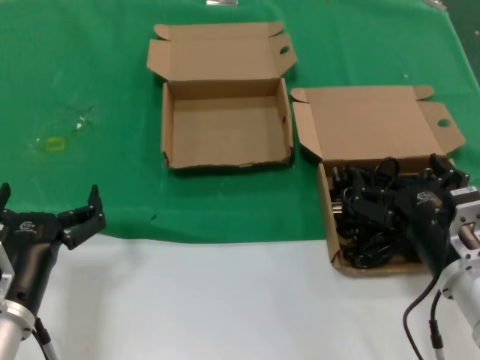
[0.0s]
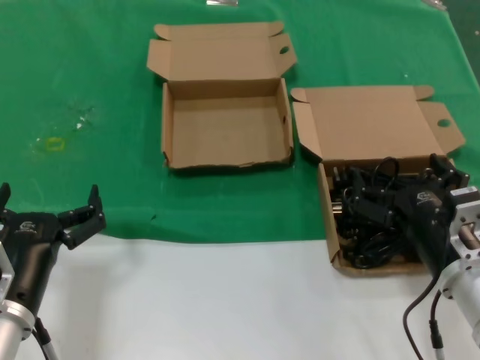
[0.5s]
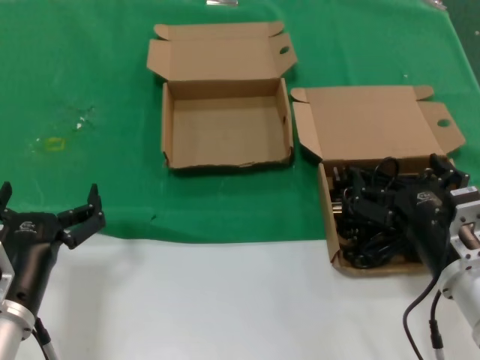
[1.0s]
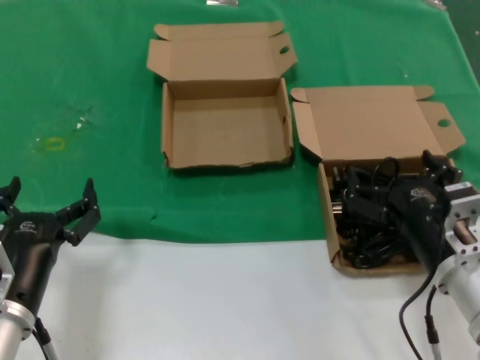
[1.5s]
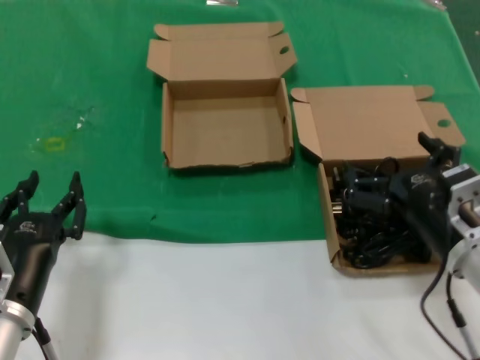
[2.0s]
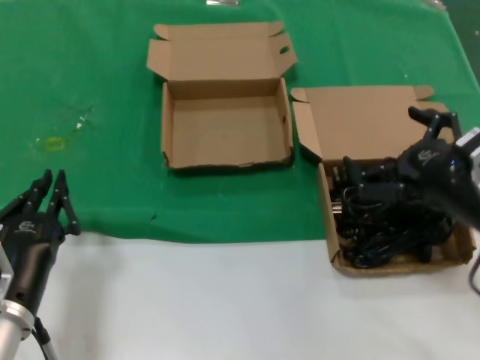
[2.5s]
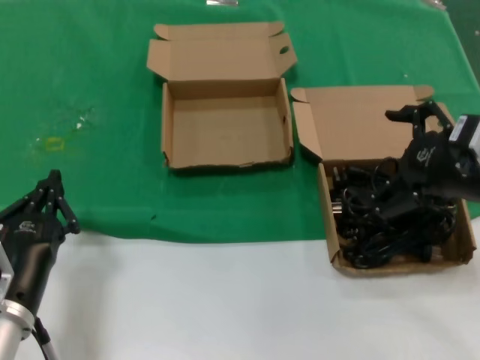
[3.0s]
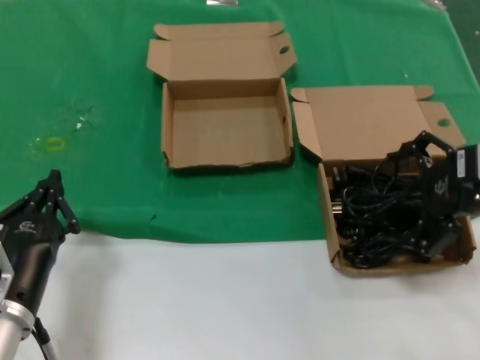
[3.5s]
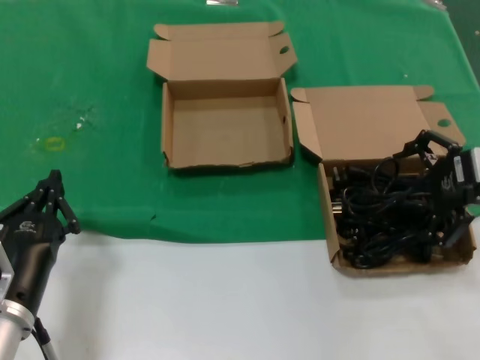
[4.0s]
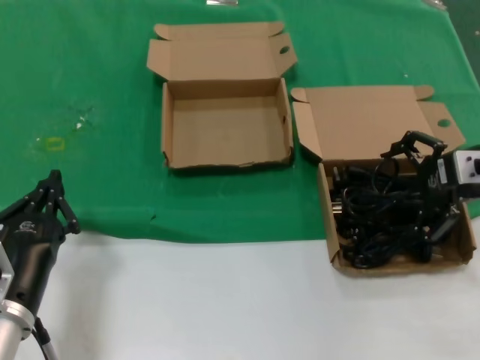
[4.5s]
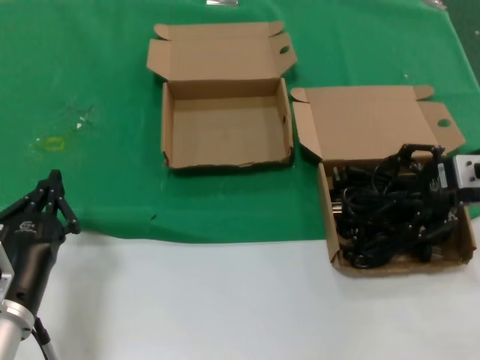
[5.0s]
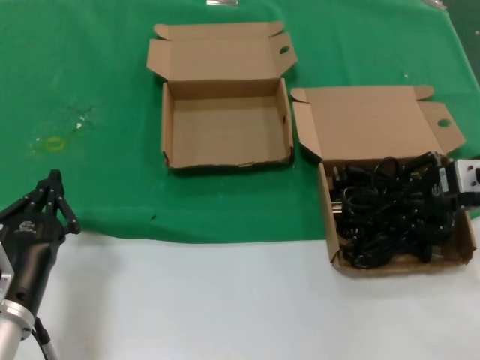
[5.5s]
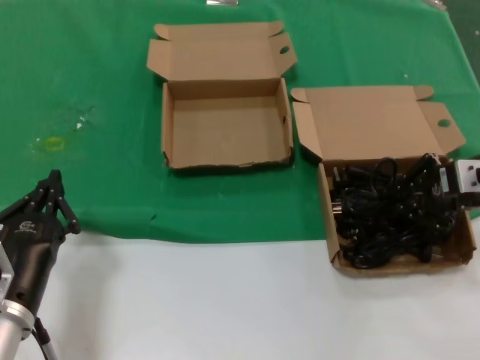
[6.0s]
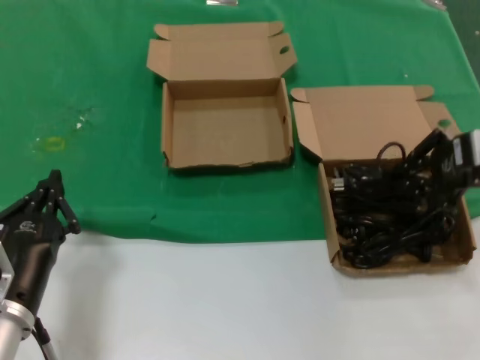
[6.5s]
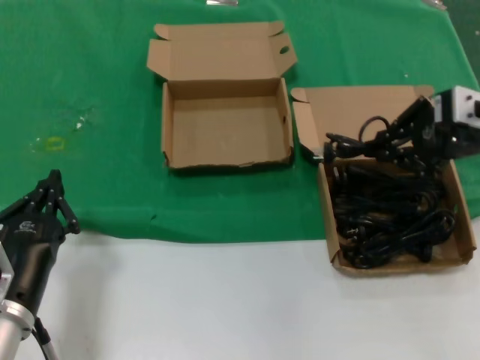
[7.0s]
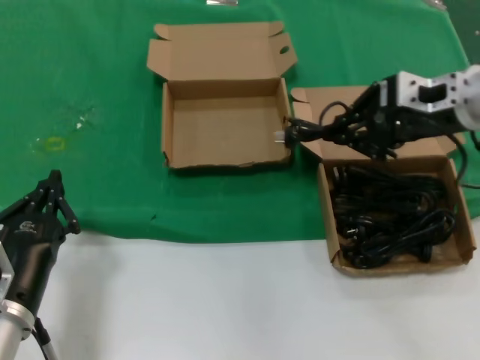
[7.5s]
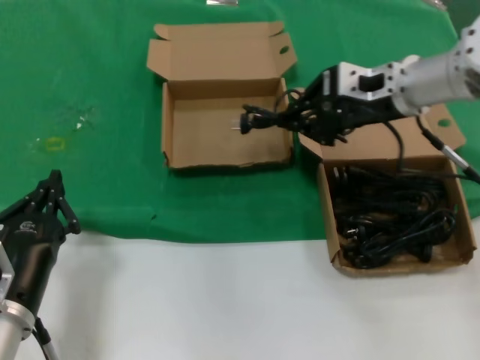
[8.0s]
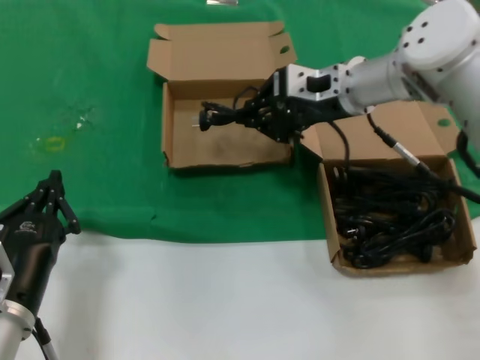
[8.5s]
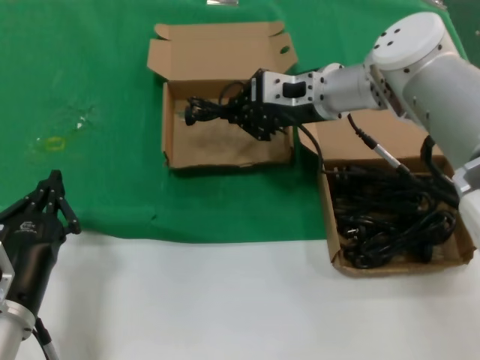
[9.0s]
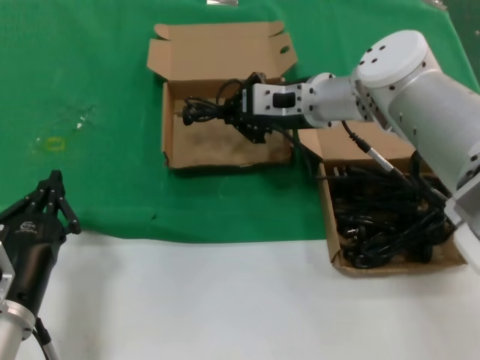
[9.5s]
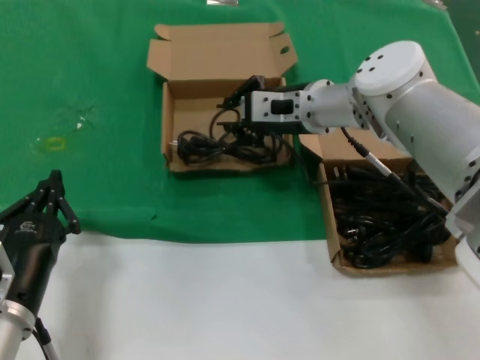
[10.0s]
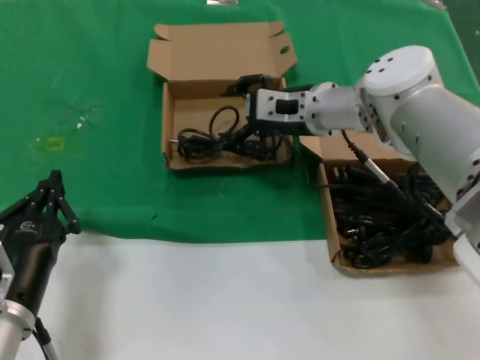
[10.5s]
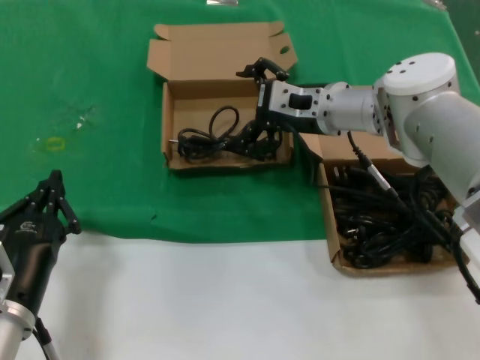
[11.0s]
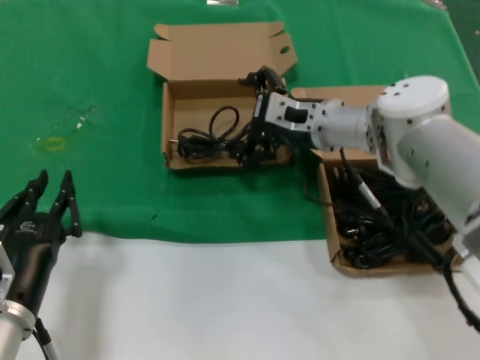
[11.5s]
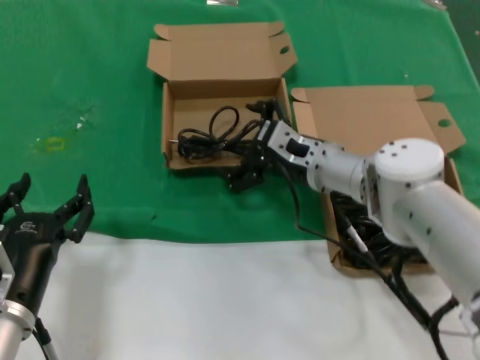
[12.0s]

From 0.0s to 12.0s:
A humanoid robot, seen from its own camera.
Task of the whole recording: take the parts from the box containing them and put them into an empty box.
Step, from 0.0s to 5.5s: Grasp the data cable.
Step, from 6.0s to 10.5s: Place the data cable in the another box.
From 0.0s to 2.0s: There are only small adjustments of the hands.
From 2.0s to 4.0s: The right hand goes approximately 20 cm upward, to the right and forward.
From 4.0s to 6.0s: The hands stay close to where they were, moving slightly.
From 6.0s to 8.0s: The right hand shifts roughly 15 cm to the left, forward and upward.
From 8.0s to 10.0s: The right hand heads to the left and downward, covering about 10 cm.
From 10.0s to 12.0s: The right hand moves downward, approximately 10 cm.

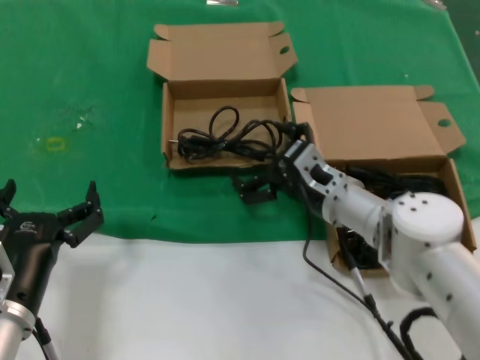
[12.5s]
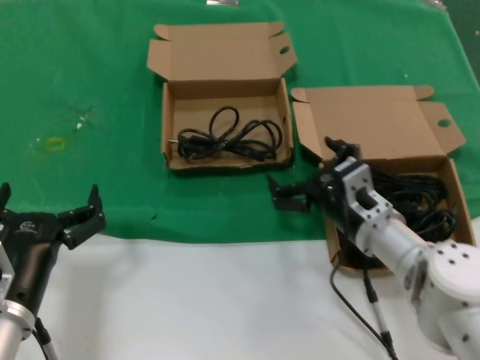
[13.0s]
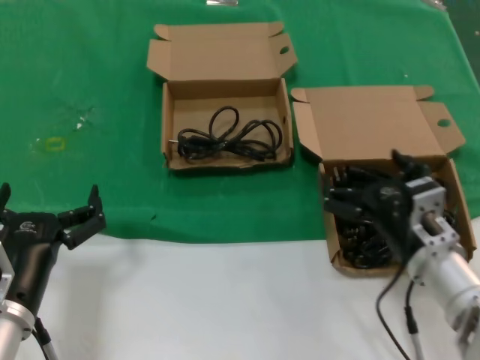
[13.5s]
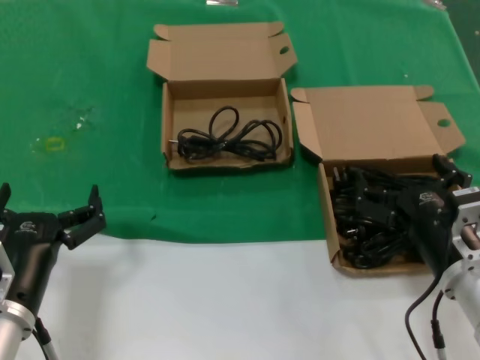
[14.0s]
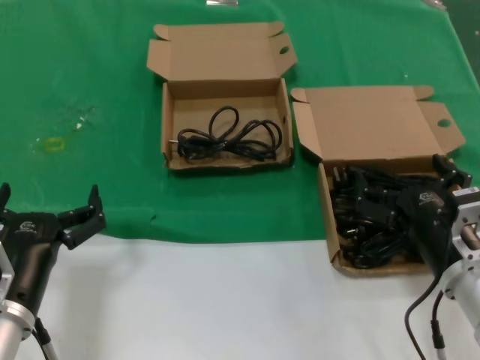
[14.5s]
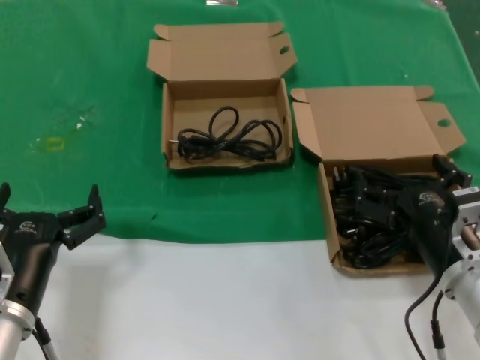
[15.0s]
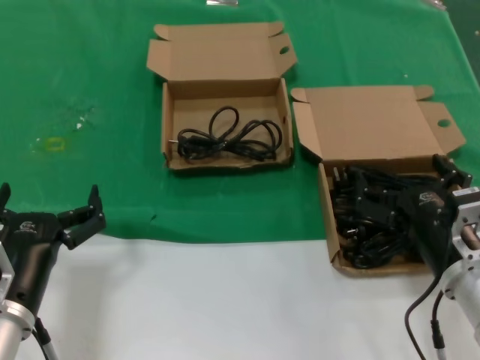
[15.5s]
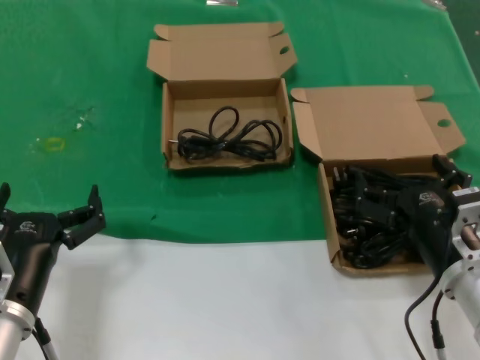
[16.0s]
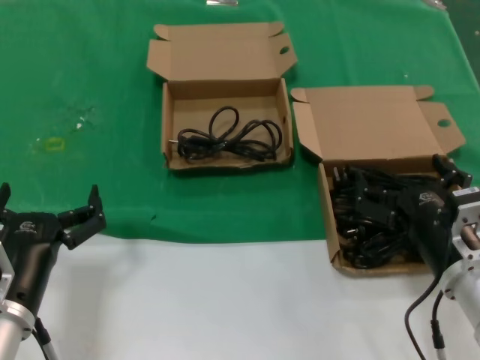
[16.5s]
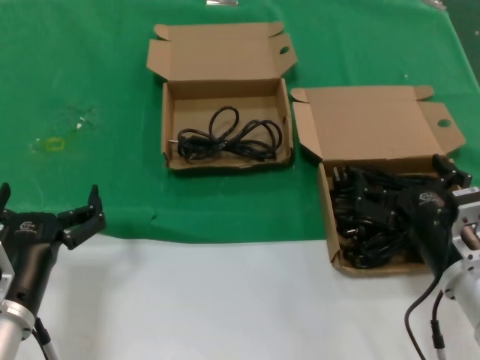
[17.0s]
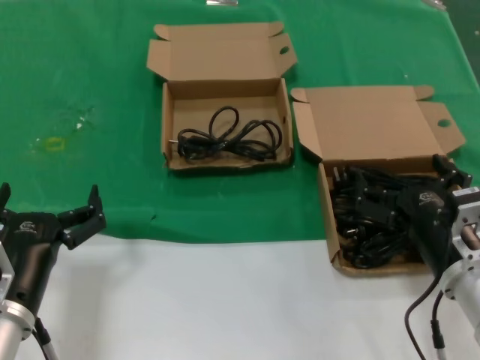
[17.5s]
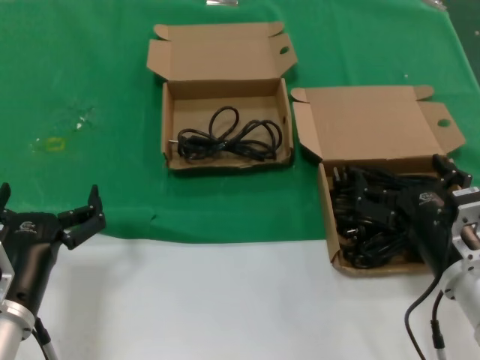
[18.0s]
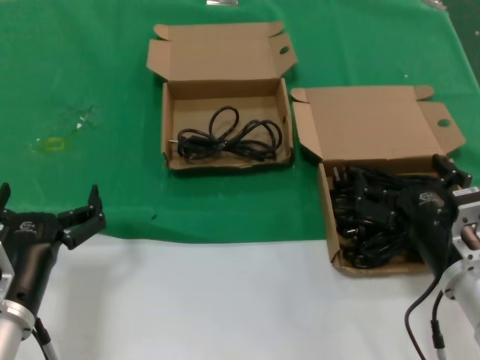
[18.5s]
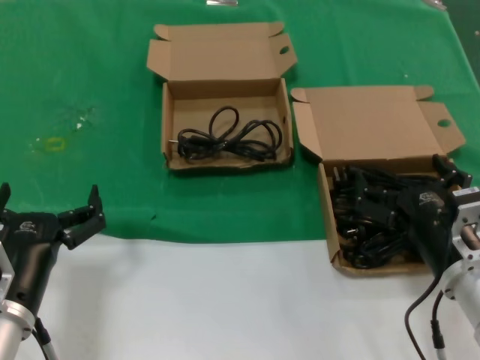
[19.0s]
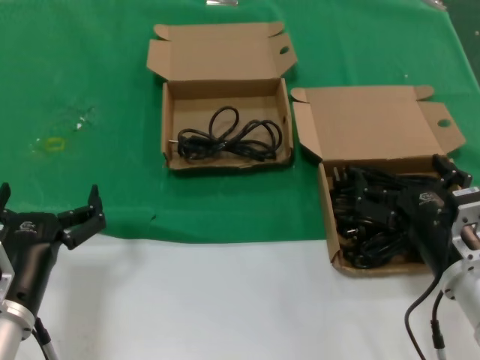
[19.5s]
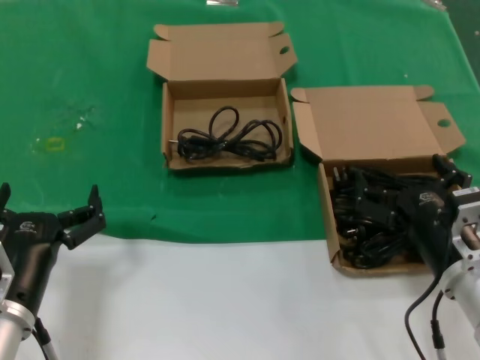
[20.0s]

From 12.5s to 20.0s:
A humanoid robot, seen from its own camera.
Task of the whole recording: take the parts from the box containing them and put them into an empty box.
From 12.5s to 14.5s: The right hand heads backward and to the right, covering roughly 20 cm.
From 14.5s to 20.0s: Both hands stay put.

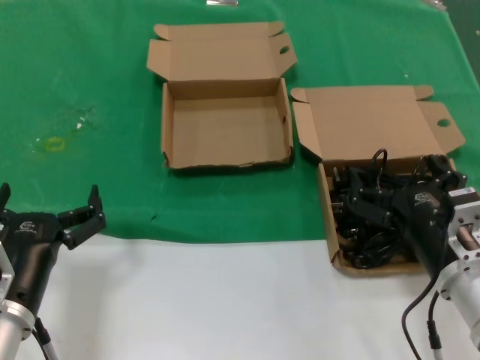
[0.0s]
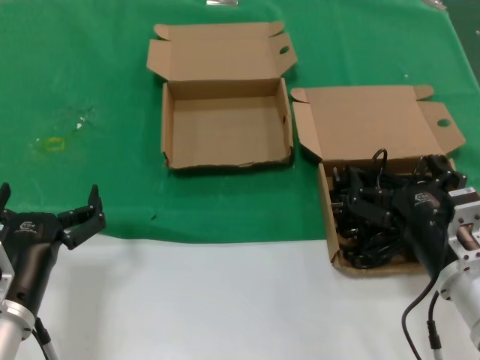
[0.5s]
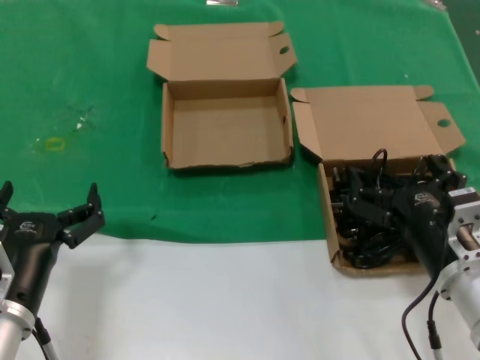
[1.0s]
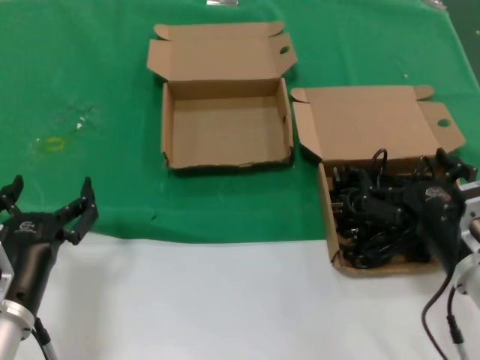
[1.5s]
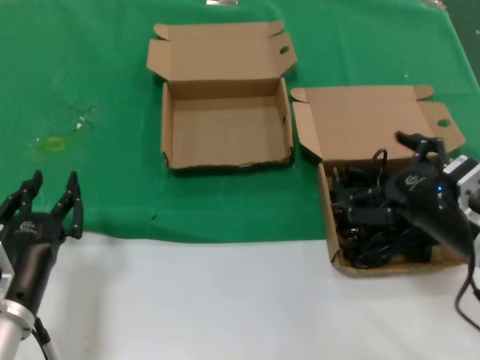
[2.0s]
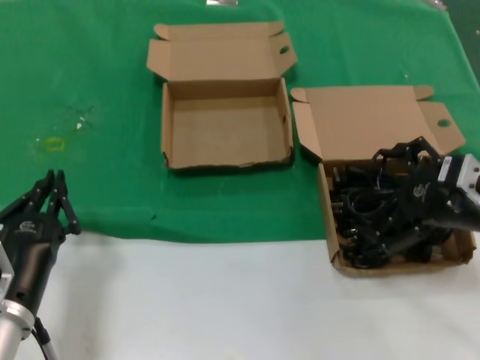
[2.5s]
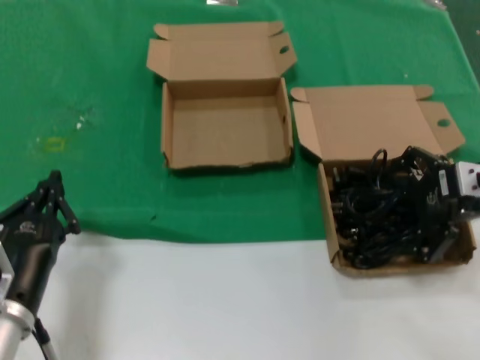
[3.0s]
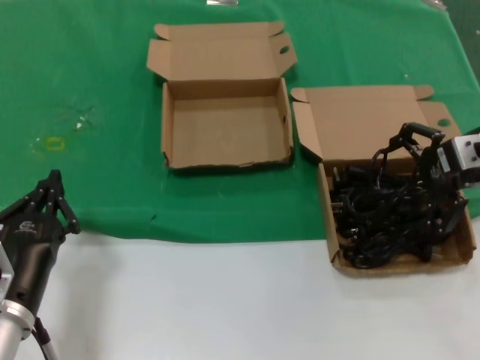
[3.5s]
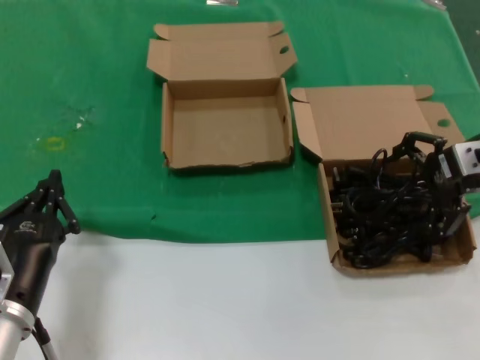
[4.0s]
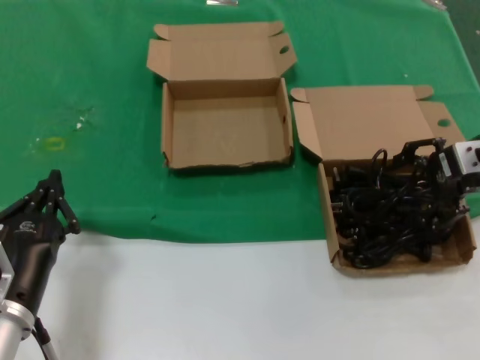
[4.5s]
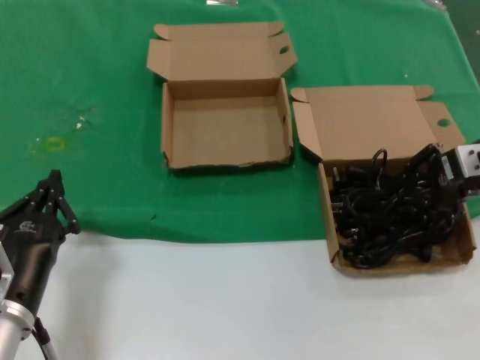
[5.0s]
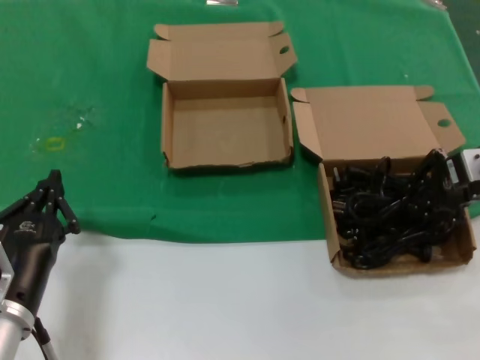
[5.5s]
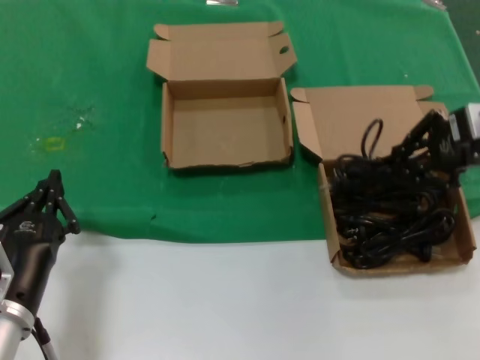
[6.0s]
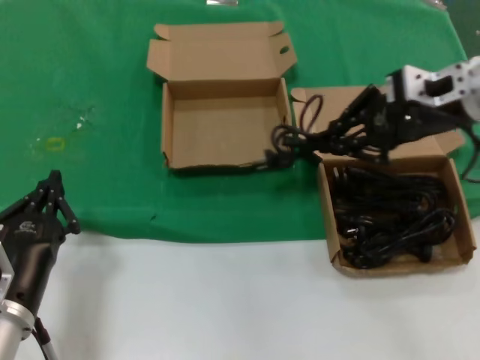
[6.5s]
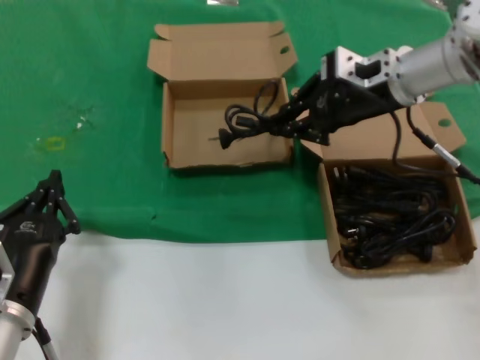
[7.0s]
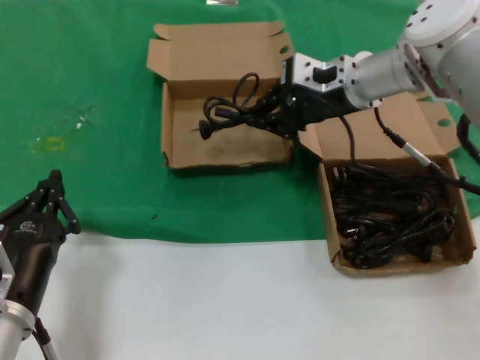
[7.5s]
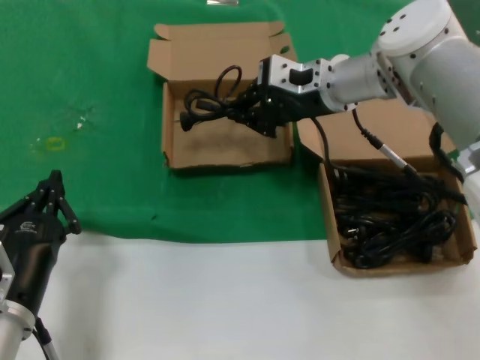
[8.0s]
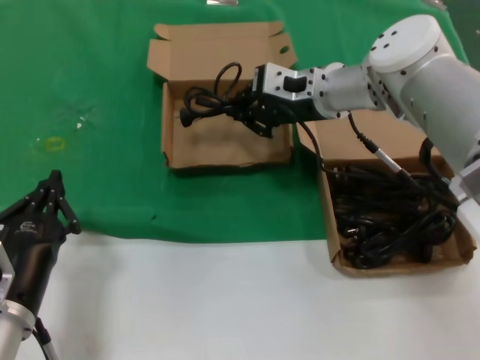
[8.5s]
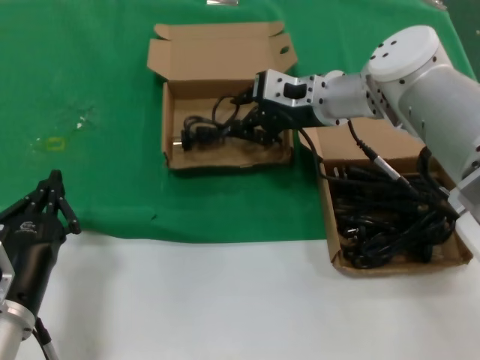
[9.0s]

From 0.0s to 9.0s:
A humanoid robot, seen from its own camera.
Task of the whole recording: take the parts from the box containing them and put them into an empty box.
Step, from 0.0s to 5.5s: Grasp the data cable.
From 0.0s to 2.0s: The right hand heads upward, covering about 5 cm.
From 2.0s to 4.5s: The right hand shifts some 20 cm forward, upward and to the right.
From 4.5s to 7.0s: The right hand is displaced to the left and forward by approximately 15 cm.
From 7.0s to 9.0s: The right hand is displaced to the left and downward by roughly 10 cm.
